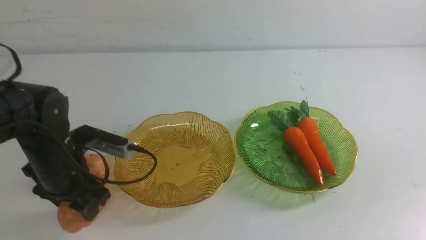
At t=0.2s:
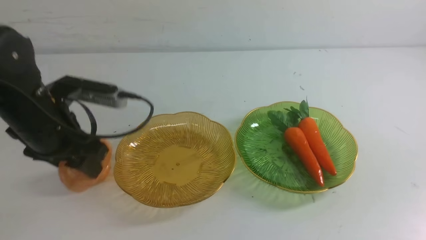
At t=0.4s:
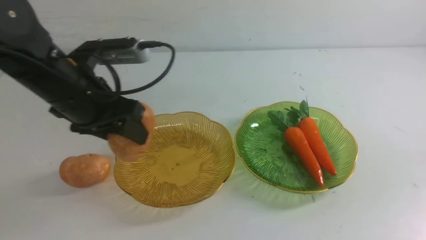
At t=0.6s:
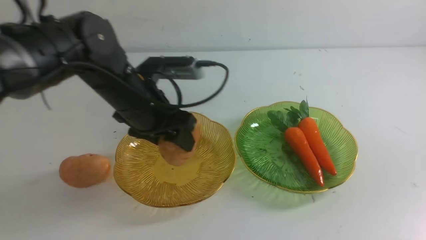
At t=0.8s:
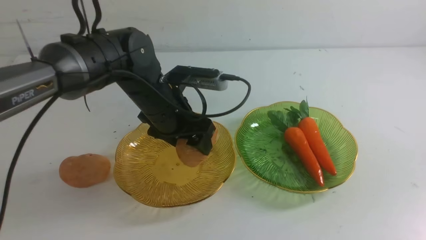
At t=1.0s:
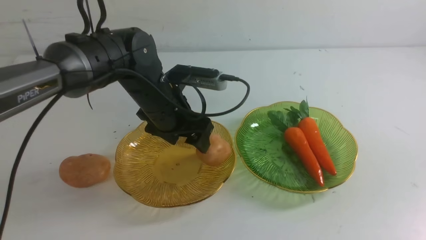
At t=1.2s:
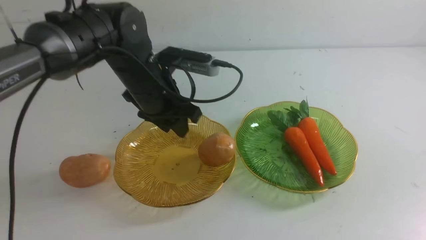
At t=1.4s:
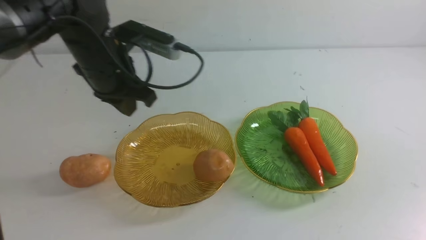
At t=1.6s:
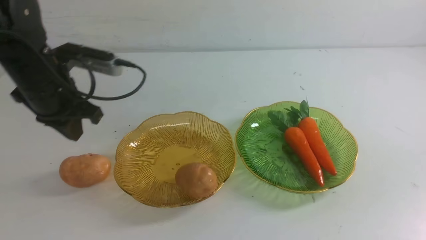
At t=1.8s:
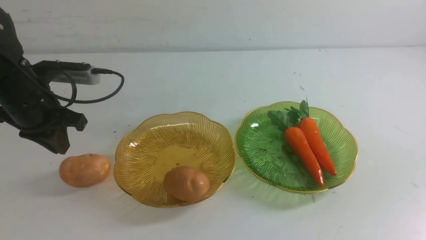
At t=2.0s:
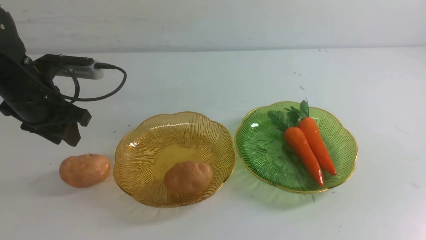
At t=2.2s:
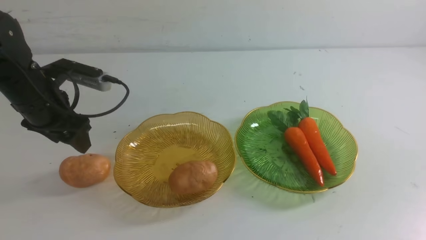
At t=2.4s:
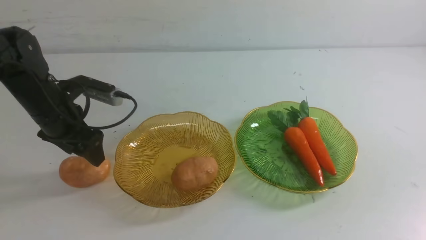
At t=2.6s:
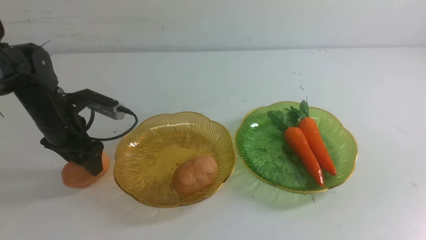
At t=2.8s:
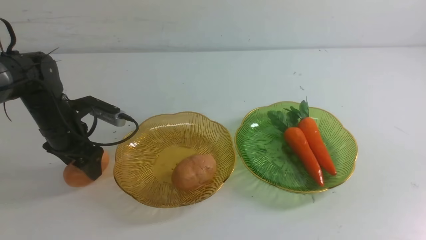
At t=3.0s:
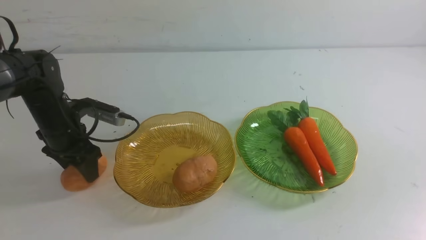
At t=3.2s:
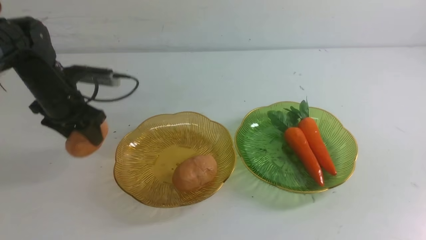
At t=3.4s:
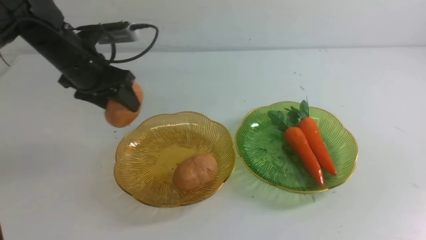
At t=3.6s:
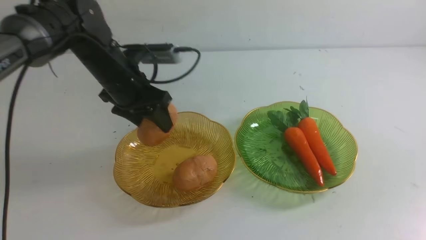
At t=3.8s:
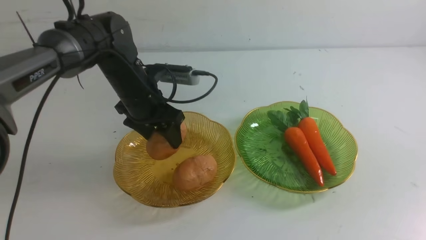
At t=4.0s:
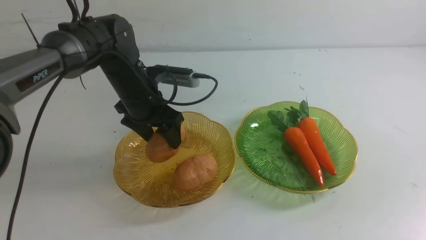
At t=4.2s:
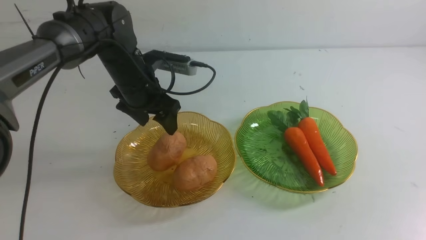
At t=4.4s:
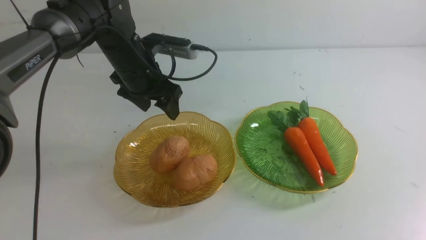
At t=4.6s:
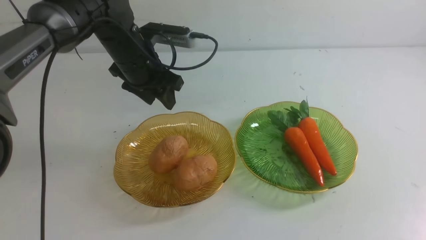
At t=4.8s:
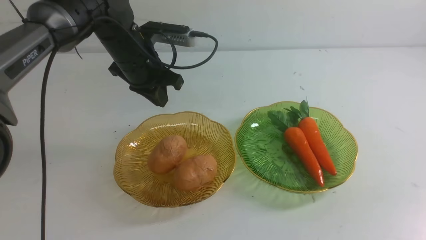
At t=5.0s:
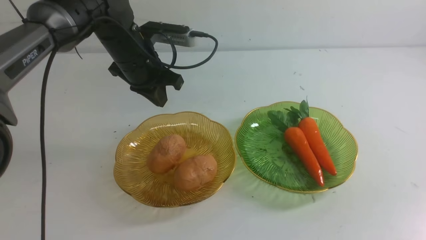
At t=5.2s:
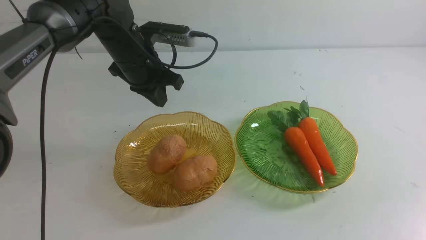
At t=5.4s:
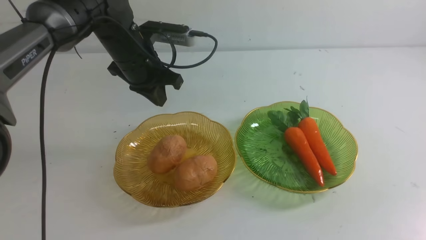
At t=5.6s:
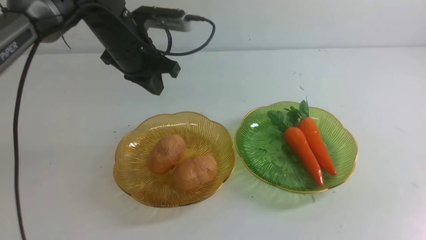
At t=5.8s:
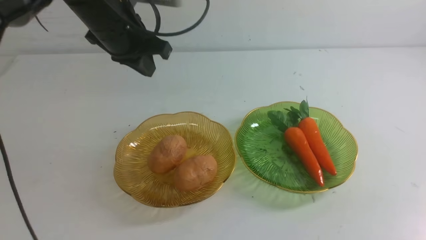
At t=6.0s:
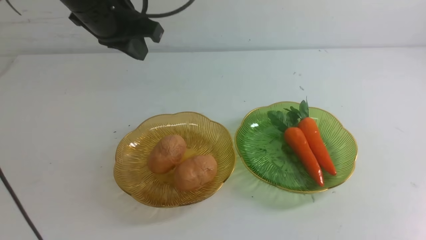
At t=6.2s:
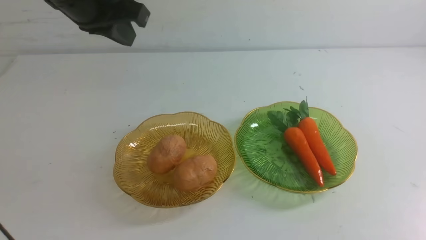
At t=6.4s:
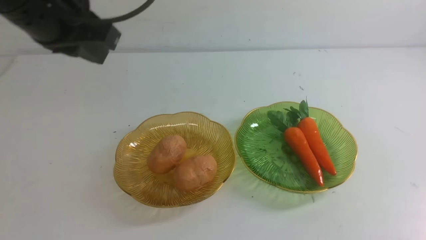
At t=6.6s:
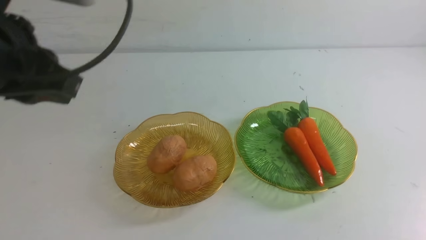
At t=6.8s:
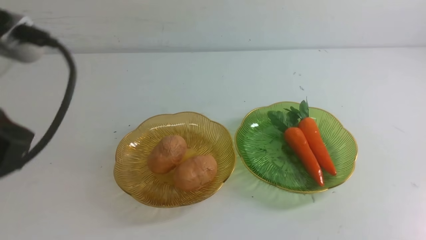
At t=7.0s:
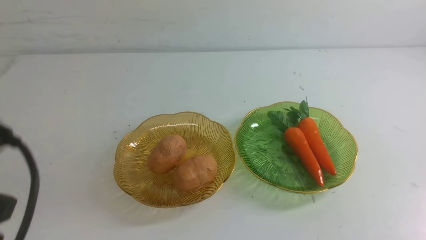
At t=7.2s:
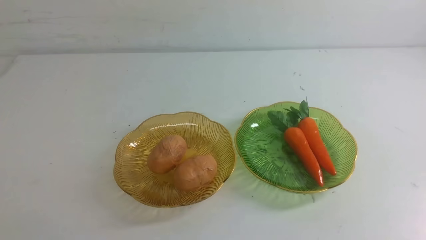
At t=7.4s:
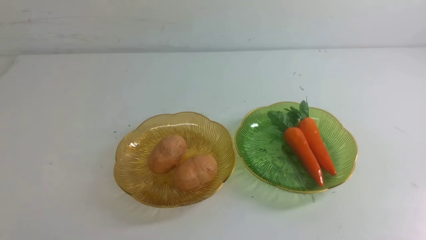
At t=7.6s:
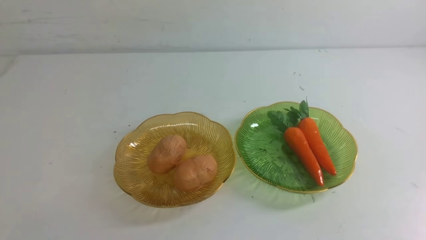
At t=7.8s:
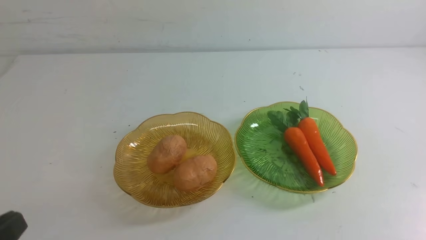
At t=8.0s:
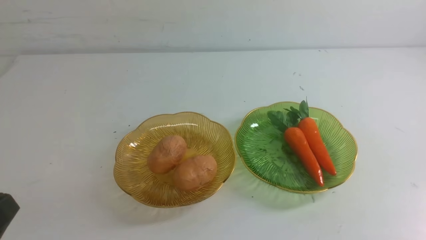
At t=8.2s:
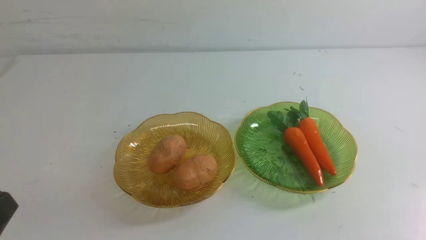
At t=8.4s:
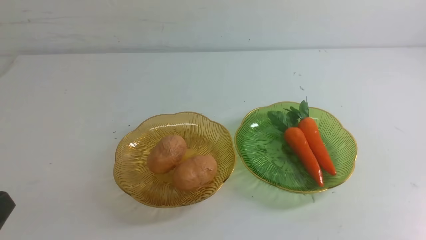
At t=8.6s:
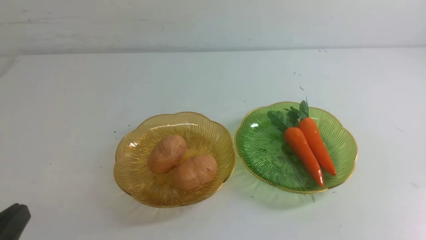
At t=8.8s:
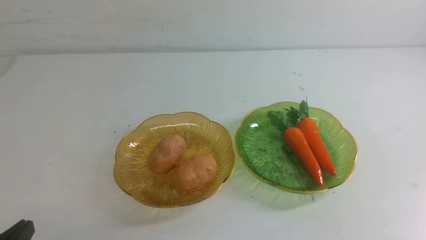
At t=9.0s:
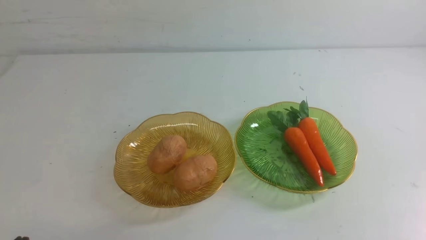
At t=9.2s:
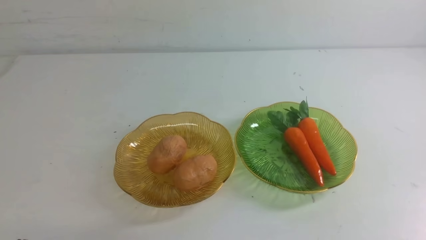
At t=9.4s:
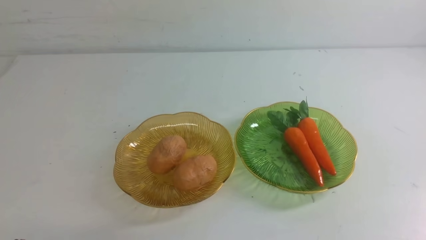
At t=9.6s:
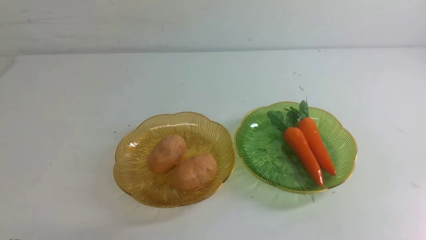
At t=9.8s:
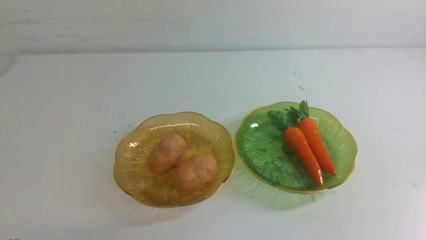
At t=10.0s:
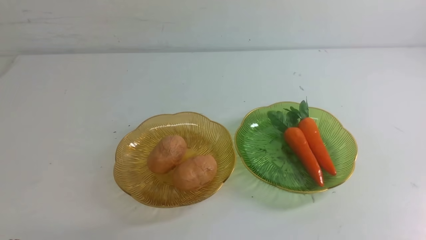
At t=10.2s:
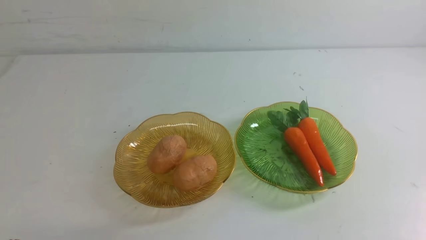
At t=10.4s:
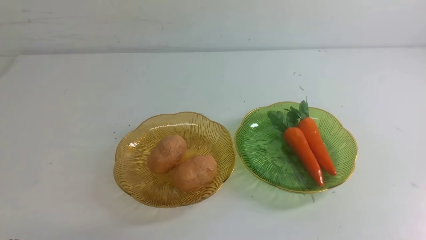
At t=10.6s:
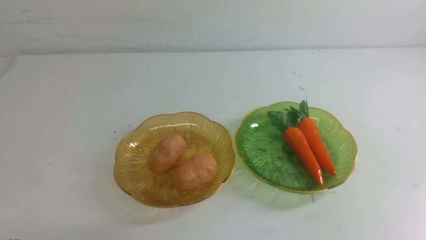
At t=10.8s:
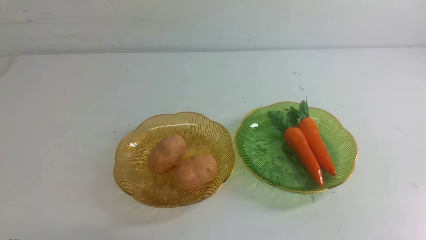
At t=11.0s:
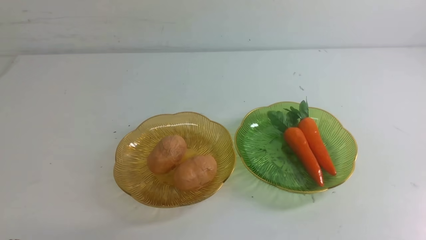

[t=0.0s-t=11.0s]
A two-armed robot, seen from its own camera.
Step, t=0.0s to t=4.6s: Grab a potato with your left arm and put it on the left plate.
t=0.0s to t=1.6s: The left gripper shifts some 5 cm forward, travels to the right and back again, about 10 cm each way, and closes.
t=1.6s to t=3.2s: The left gripper goes about 5 cm downward, and opens its fingers.
t=3.2s to t=4.8s: The right gripper goes some 5 cm backward, while the left gripper heads to the right and upward, covering roughly 15 cm, and closes up.
t=4.8s to t=6.2s: The left gripper travels backward and upward by roughly 25 cm, while the right gripper heads downward, covering about 10 cm.
t=6.2s to t=7.8s: The left gripper moves backward and downward, about 25 cm.
t=7.8s to t=9.4s: The left gripper shifts about 10 cm downward.
t=9.4s to t=11.0s: Neither gripper changes place.
